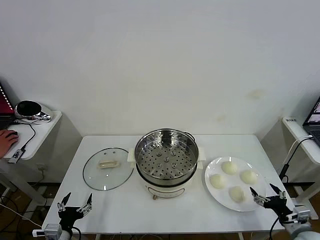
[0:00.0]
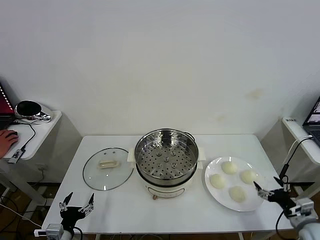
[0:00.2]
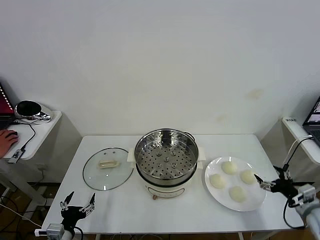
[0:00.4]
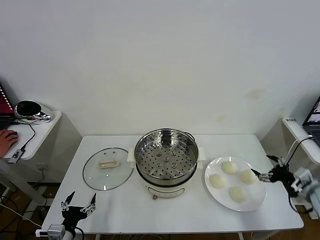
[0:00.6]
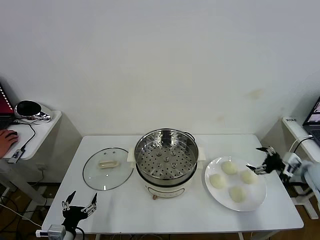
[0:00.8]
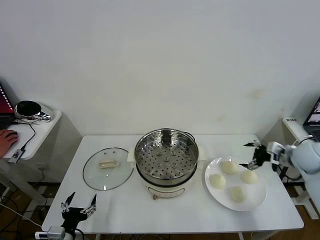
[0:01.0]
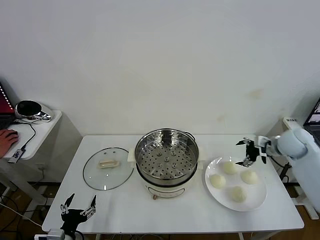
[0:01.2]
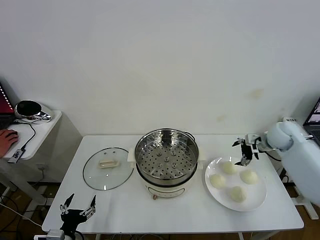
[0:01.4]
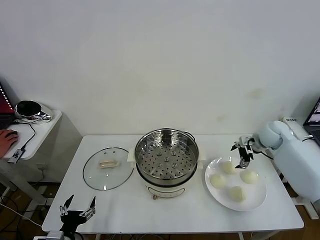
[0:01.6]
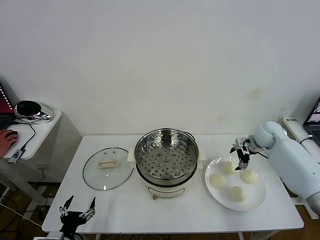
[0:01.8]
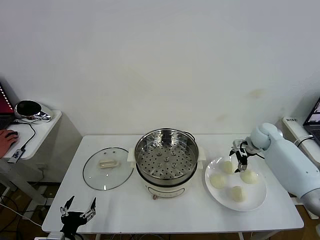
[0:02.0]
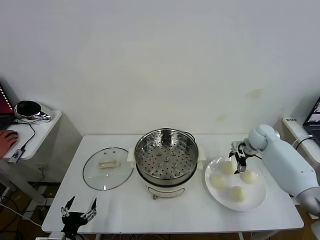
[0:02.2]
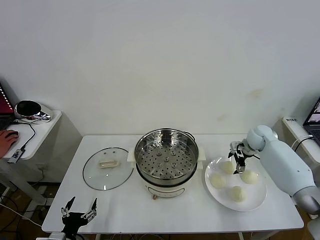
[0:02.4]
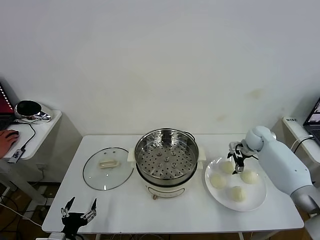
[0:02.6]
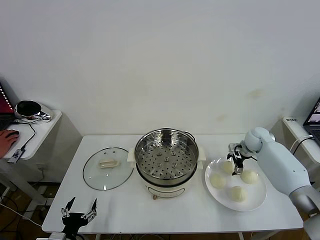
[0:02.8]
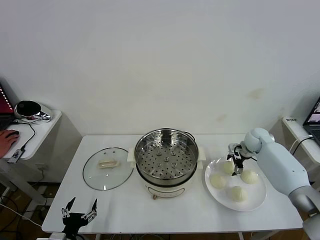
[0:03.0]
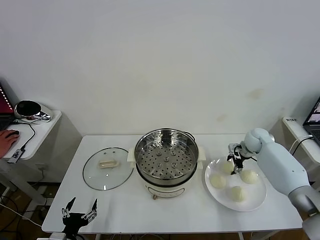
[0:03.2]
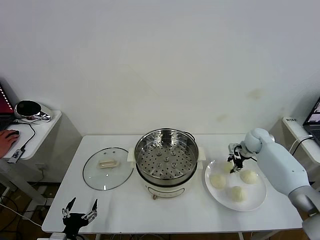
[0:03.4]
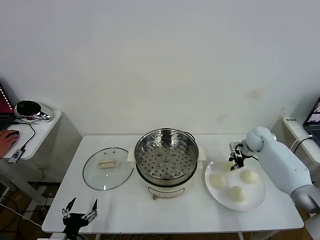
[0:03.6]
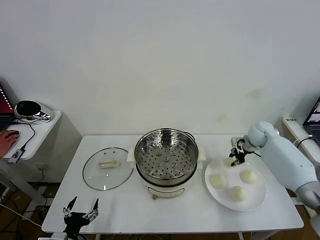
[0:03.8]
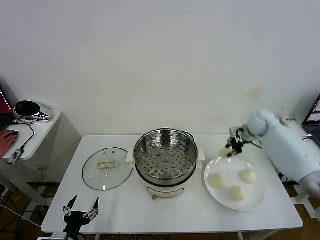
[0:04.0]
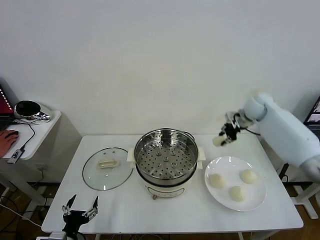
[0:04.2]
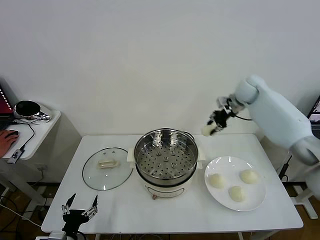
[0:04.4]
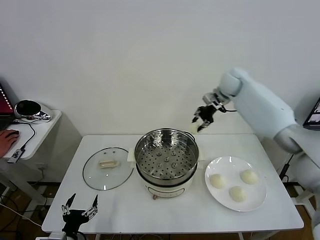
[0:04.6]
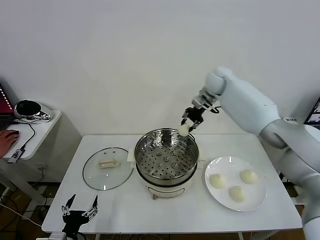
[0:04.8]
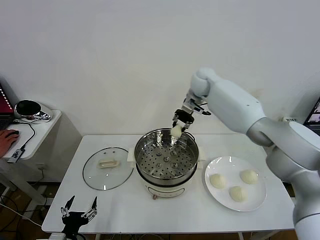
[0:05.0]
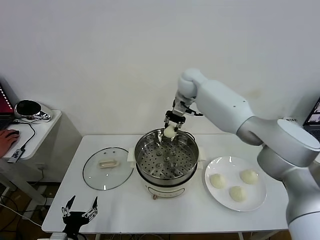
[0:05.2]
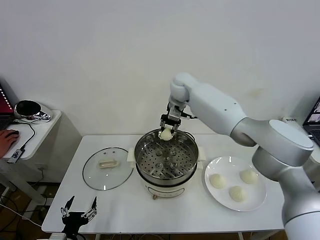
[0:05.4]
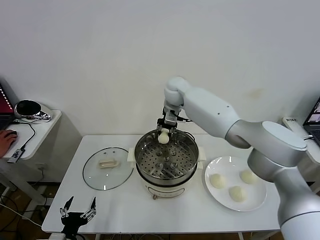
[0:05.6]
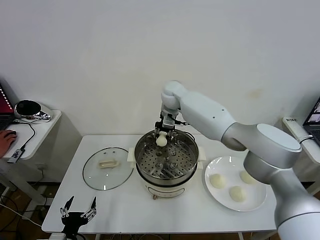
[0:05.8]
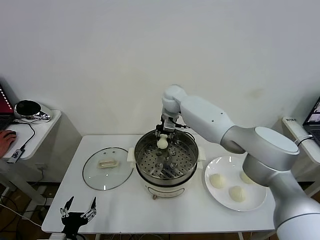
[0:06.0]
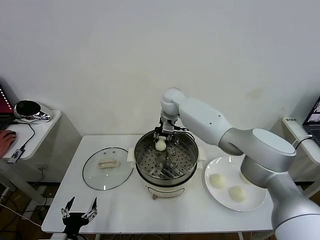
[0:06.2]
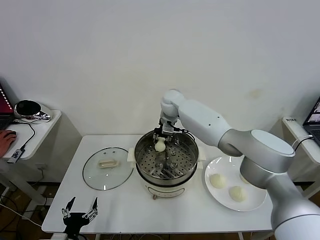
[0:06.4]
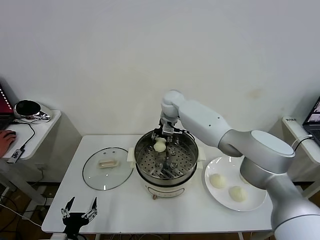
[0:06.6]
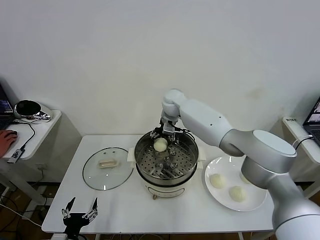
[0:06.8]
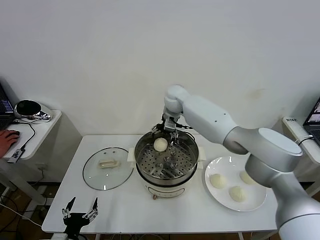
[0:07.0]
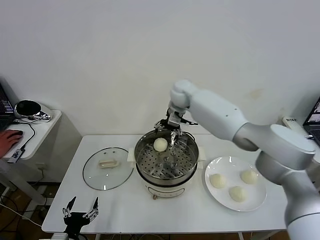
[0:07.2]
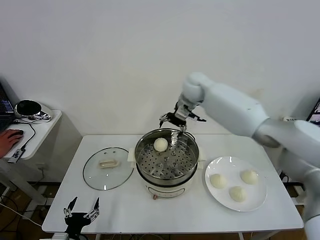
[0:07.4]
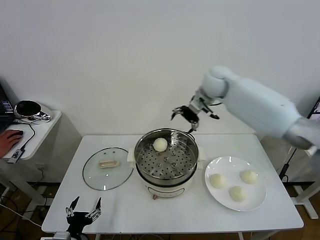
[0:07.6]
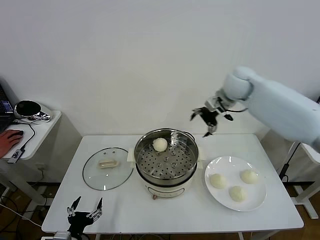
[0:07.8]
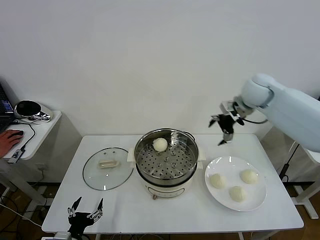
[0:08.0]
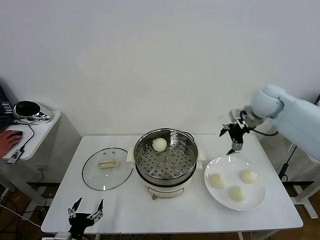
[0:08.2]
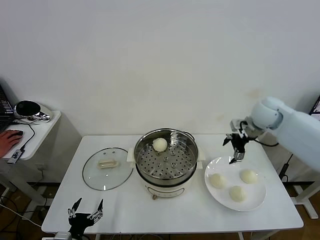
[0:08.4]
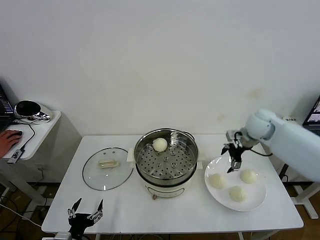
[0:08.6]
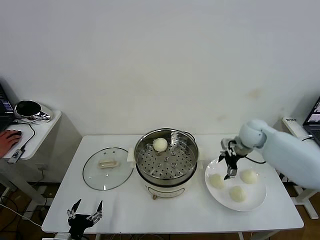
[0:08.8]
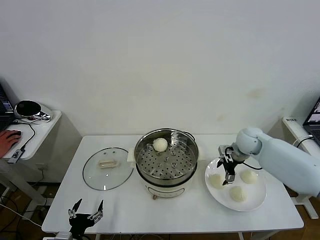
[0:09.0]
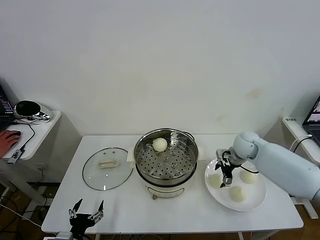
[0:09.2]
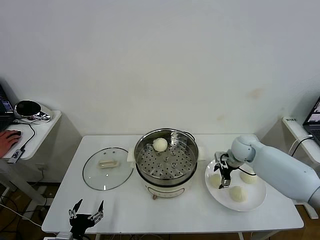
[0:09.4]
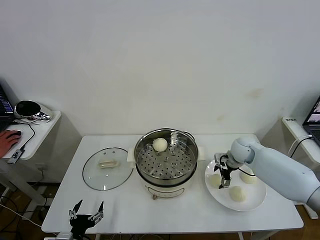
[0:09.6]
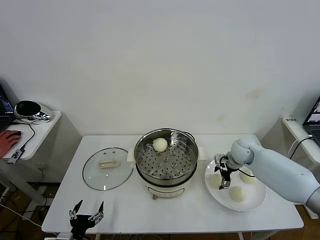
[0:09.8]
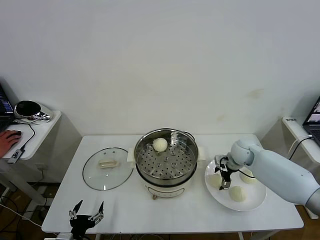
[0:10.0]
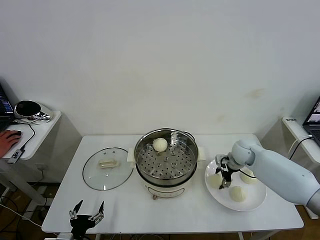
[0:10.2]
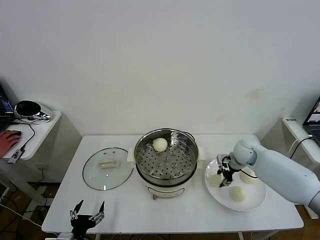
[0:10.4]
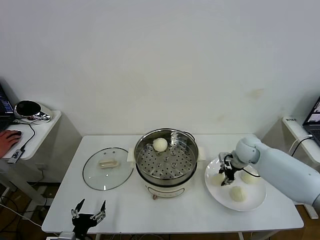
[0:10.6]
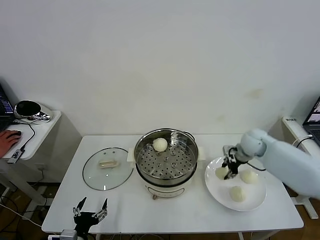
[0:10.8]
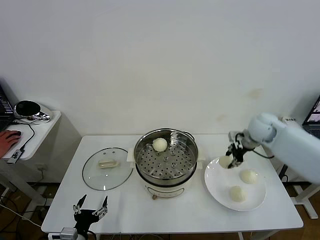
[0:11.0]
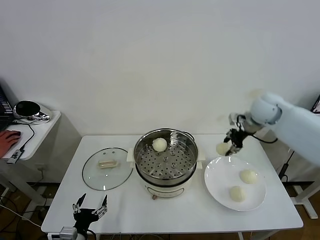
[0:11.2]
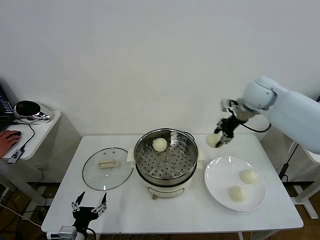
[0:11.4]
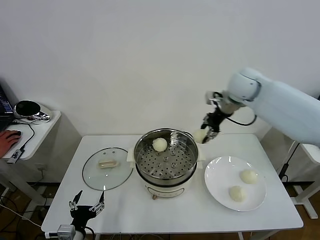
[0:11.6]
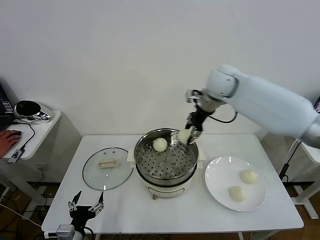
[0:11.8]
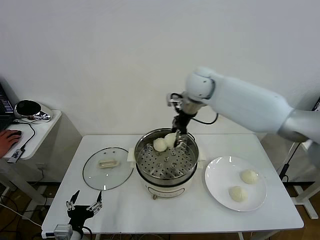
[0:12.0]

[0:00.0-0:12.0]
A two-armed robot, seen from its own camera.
Task of the whole recording: take steamed baozi put them in steamer then cover it.
Step, 0:00.0 to 0:03.2: Grasp the baozi in the plate with right gripper.
Step, 0:03.4 to 0:07.0: Place the baozi on the steamer with right gripper.
Step, 0:07.2 to 0:10.2: Grasp the baozi in the plate with right gripper.
0:01.6 to 0:03.0: The right gripper is displaced downward by about 5 cm.
0:03.0 to 0:04.4: The right gripper shifts roughly 25 cm upward and to the left, and closes its fingers.
0:04.4 to 0:06.0: The right gripper moves to the left, about 25 cm.
0:06.0 to 0:07.6: The right gripper heads to the right and upward, covering roughly 20 cm, and opens.
0:07.6 to 0:09.0: The right gripper shifts roughly 25 cm downward and to the right.
0:09.0 to 0:10.4: The right gripper closes up.
0:10.4 to 0:12.0: The right gripper moves upward and to the left, approximately 35 cm.

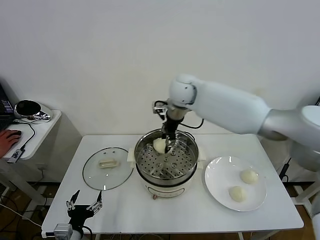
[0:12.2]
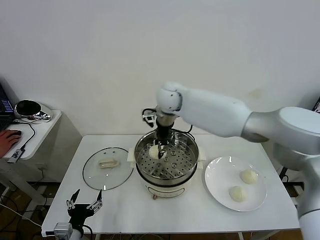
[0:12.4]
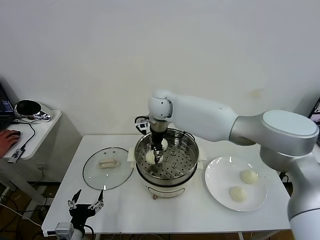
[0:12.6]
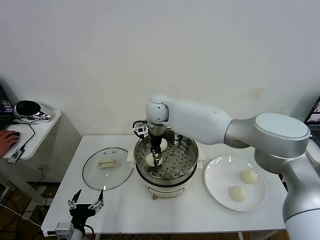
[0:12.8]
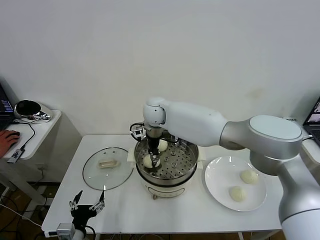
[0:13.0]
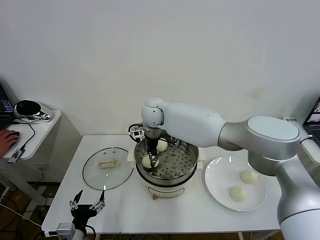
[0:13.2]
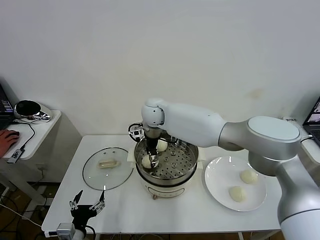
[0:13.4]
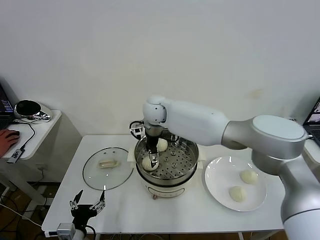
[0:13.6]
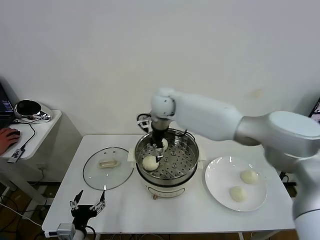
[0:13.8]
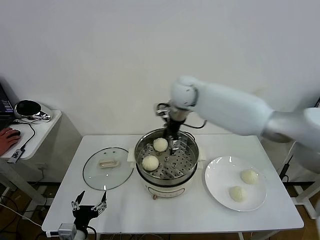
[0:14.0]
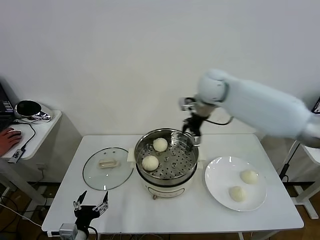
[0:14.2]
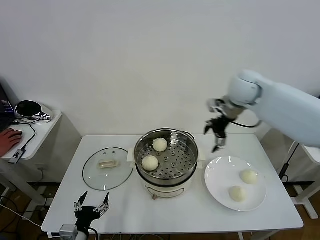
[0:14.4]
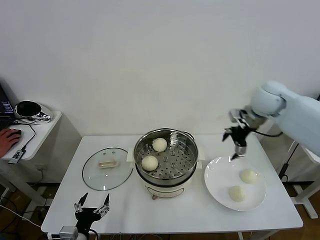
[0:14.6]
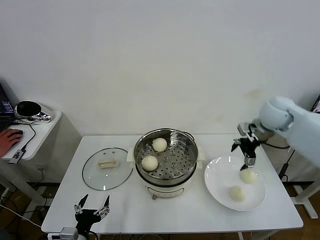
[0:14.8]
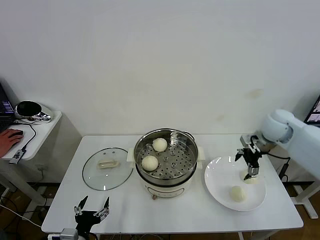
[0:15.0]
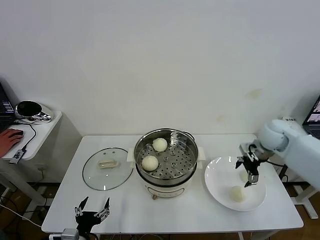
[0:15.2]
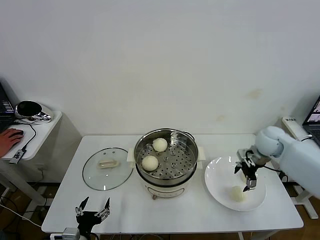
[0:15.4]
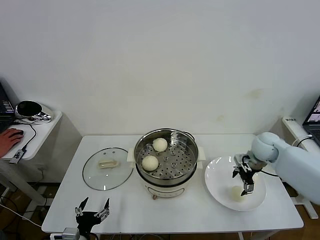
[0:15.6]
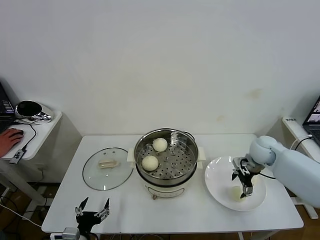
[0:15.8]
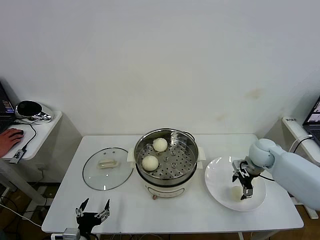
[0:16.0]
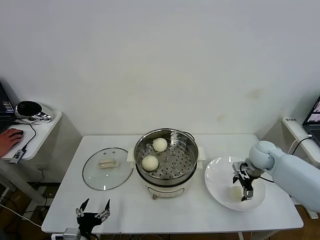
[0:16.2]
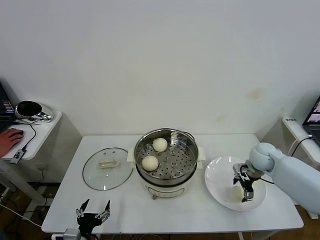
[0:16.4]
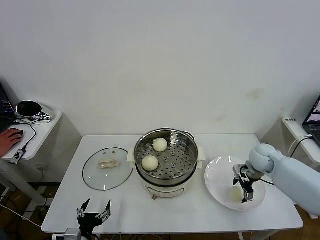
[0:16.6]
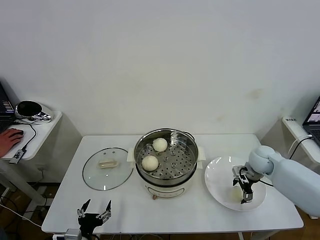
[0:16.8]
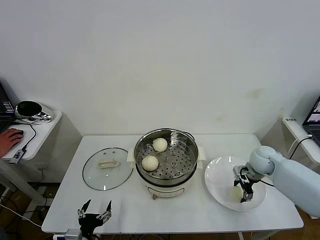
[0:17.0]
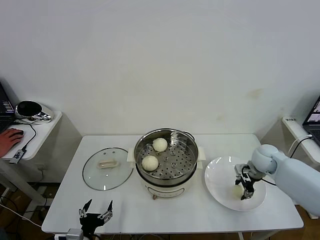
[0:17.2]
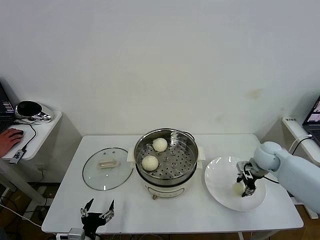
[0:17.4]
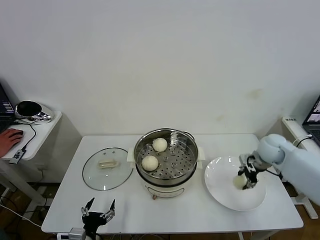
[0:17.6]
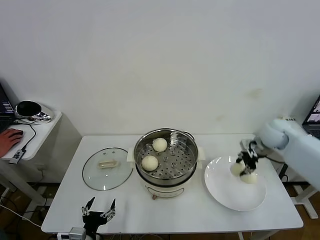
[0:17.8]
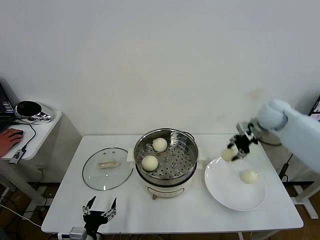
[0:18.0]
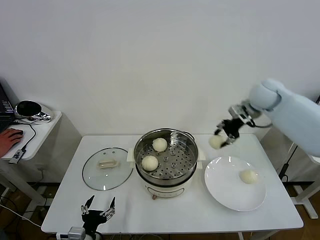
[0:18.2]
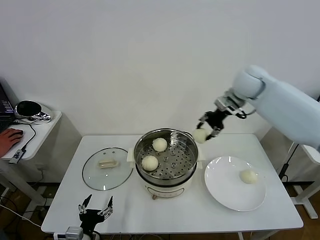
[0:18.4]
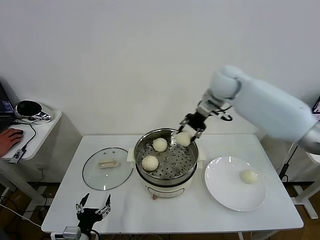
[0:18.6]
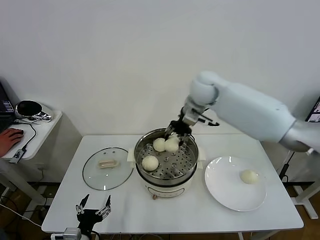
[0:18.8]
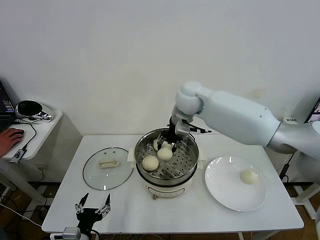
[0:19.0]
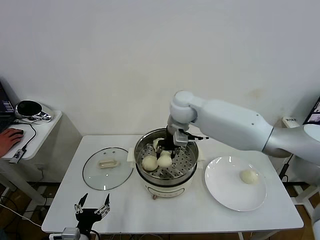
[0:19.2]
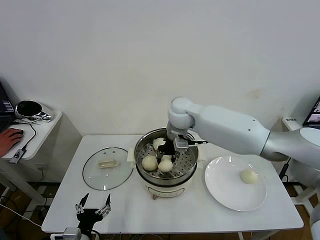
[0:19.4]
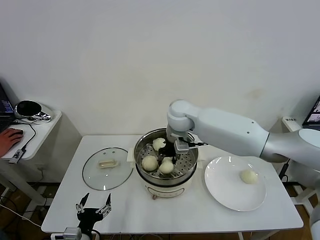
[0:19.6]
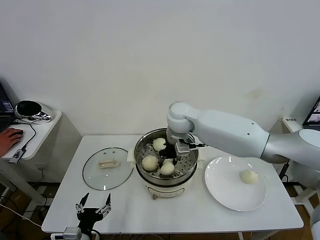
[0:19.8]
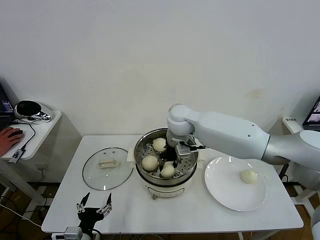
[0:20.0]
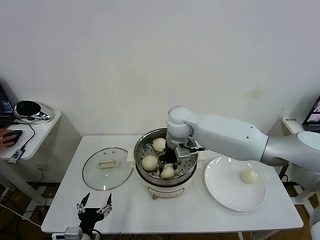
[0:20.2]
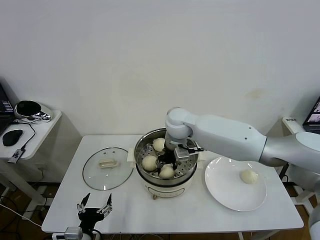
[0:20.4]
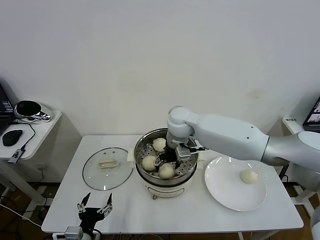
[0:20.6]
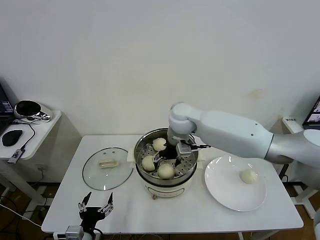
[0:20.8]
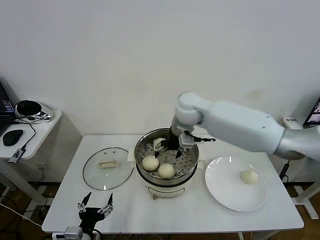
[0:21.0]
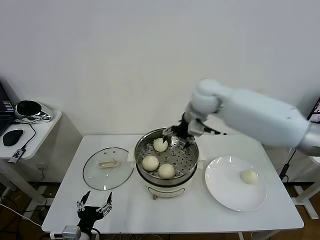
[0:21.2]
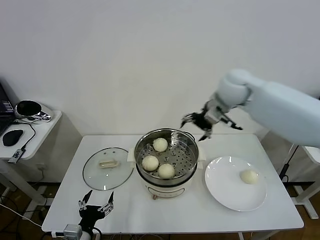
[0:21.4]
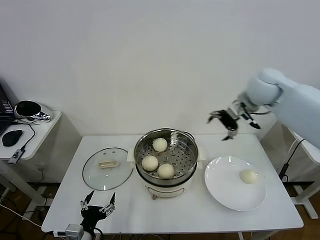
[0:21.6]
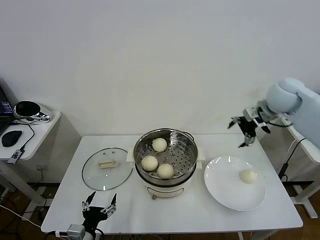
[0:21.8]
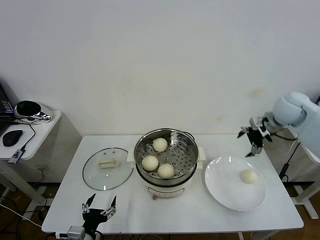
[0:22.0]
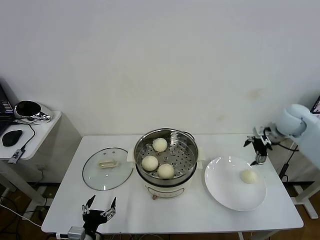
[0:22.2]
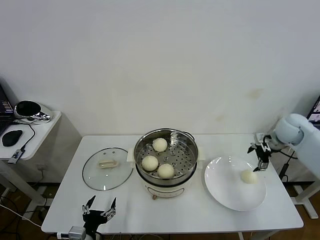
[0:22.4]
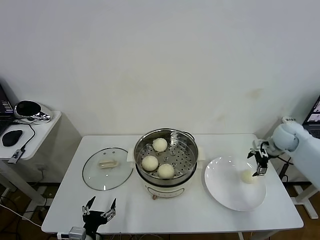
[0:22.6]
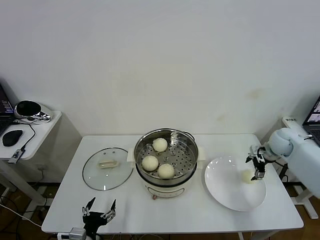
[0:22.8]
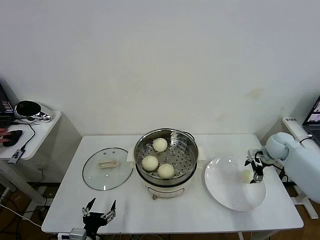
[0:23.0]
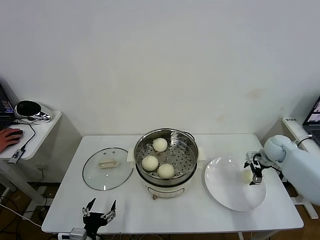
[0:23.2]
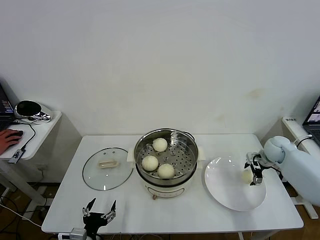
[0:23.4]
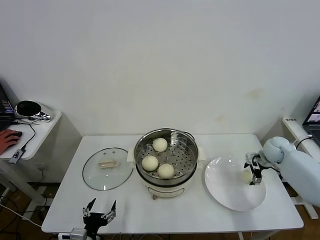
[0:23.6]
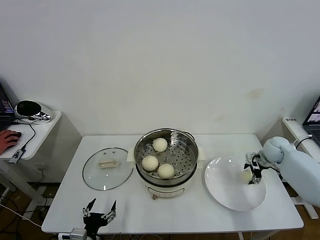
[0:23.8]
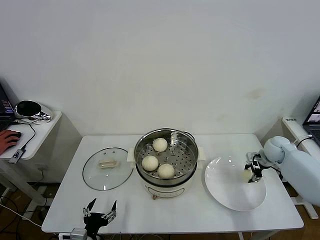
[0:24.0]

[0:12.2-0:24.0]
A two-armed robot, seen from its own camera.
Task of the whole recording: take steamed baozi put them in steamer then cover it.
Step, 0:13.8 to 0:17.0: Grasp the baozi in the plate with right gripper.
Step, 0:17.2 to 0:20.8: Place the baozi on the steamer with right gripper.
Step, 0:21.0 to 0:24.0: Grasp the baozi in the plate with right gripper.
0:12.2 to 0:13.6: The right gripper moves to the left and downward, about 10 cm, and opens up.
0:13.6 to 0:15.2: The right gripper shifts about 40 cm to the right.
0:15.2 to 0:16.6: The right gripper heads downward, covering roughly 10 cm.
0:16.6 to 0:18.2: The right gripper travels upward and forward by some 25 cm, and closes up.
0:18.2 to 0:19.6: The right gripper heads to the left, covering approximately 25 cm.
0:19.6 to 0:21.0: The right gripper moves about 5 cm, and opens its fingers.
0:21.0 to 0:22.6: The right gripper heads to the right, covering roughly 35 cm.
0:22.6 to 0:24.0: The right gripper moves downward, about 5 cm, and closes its fingers.
